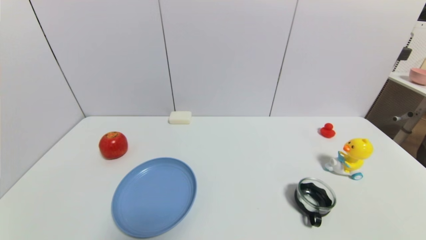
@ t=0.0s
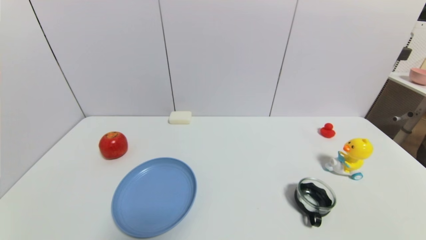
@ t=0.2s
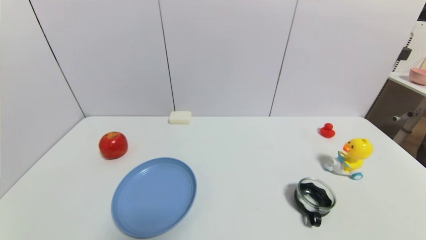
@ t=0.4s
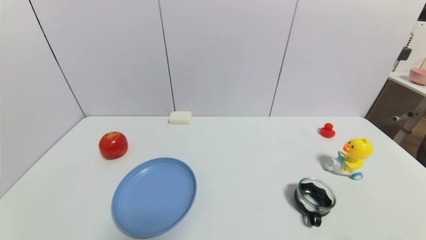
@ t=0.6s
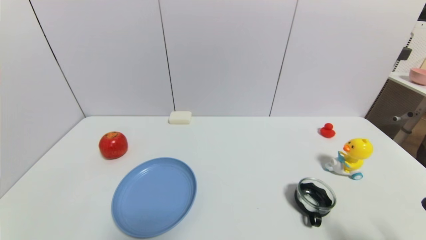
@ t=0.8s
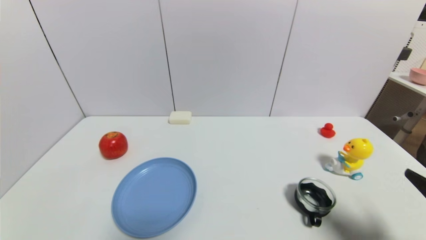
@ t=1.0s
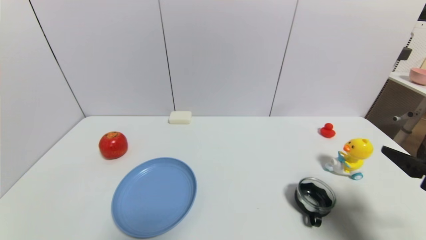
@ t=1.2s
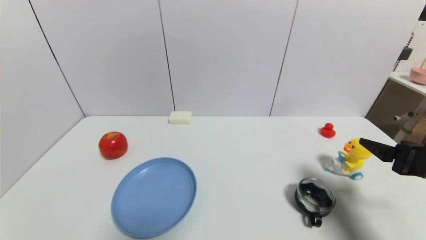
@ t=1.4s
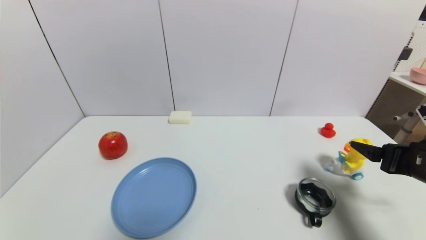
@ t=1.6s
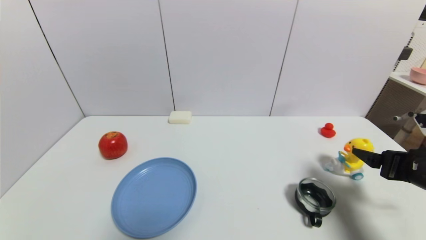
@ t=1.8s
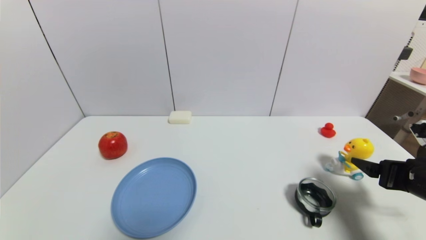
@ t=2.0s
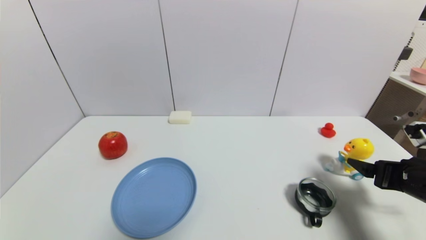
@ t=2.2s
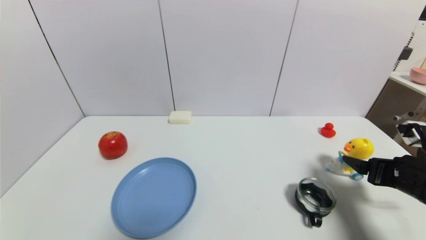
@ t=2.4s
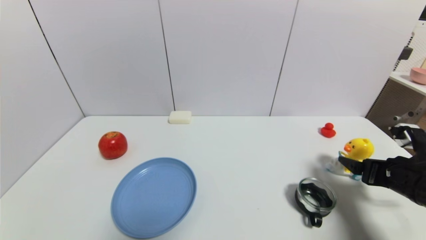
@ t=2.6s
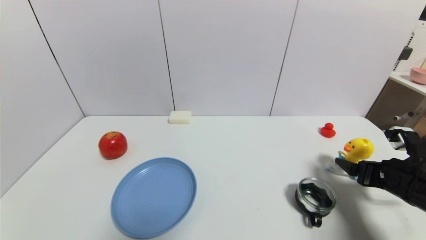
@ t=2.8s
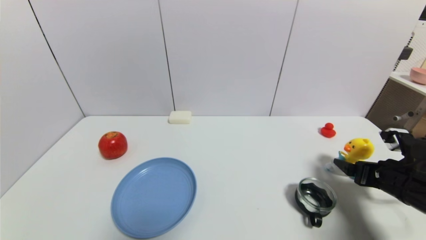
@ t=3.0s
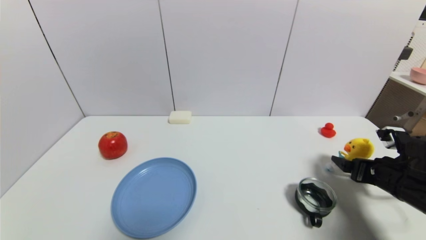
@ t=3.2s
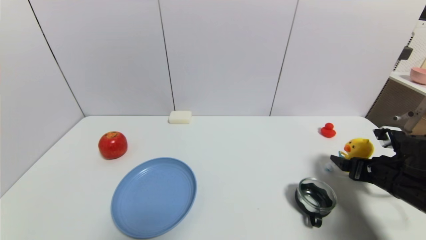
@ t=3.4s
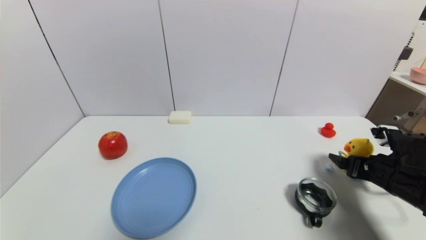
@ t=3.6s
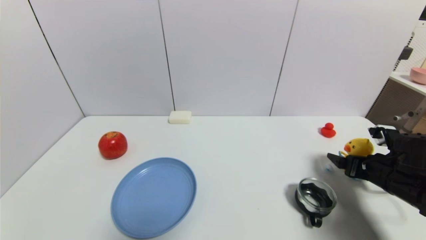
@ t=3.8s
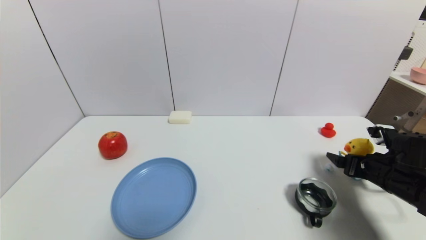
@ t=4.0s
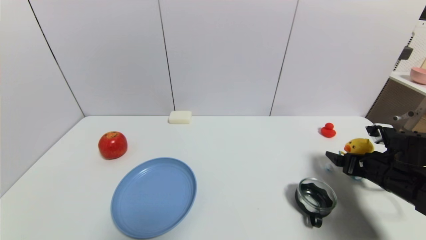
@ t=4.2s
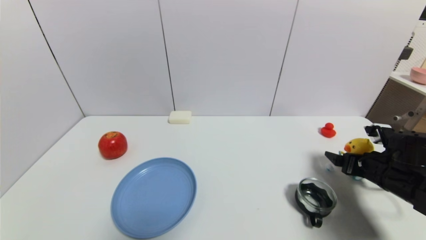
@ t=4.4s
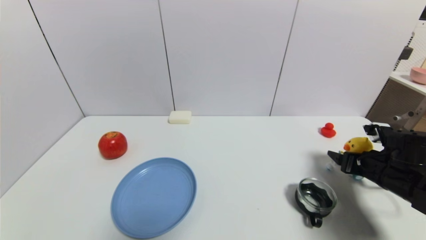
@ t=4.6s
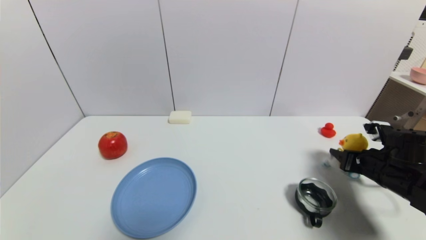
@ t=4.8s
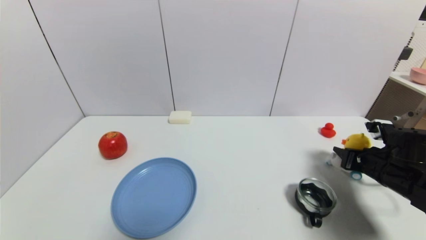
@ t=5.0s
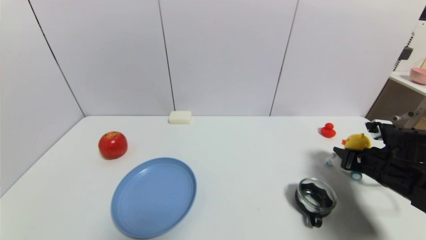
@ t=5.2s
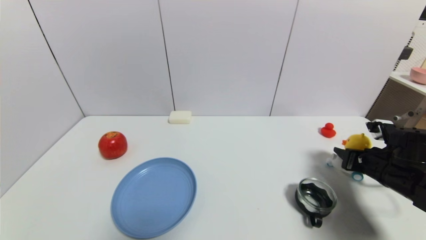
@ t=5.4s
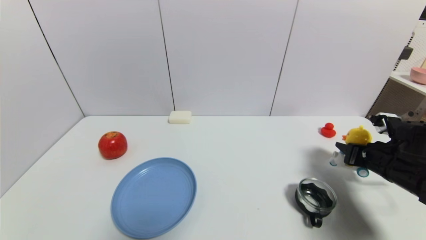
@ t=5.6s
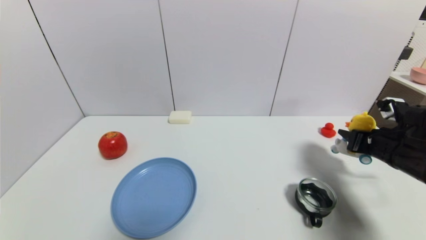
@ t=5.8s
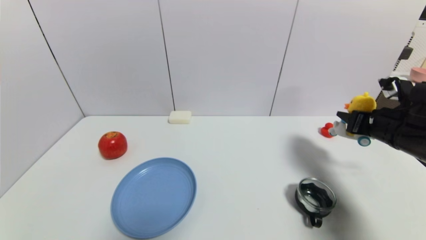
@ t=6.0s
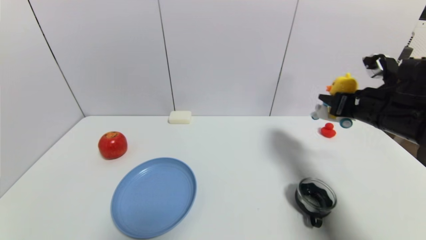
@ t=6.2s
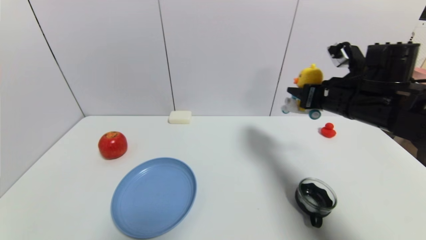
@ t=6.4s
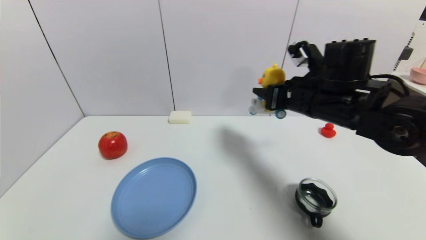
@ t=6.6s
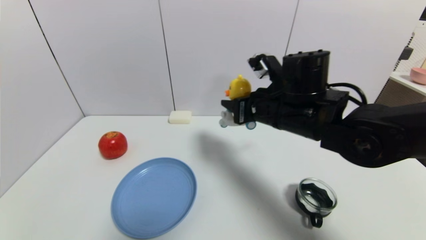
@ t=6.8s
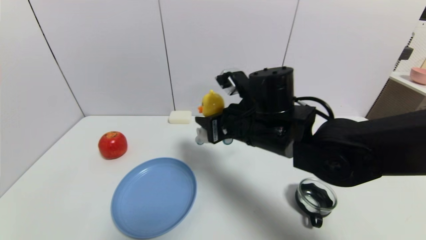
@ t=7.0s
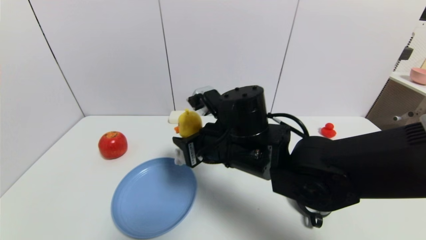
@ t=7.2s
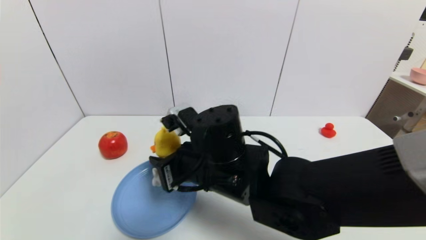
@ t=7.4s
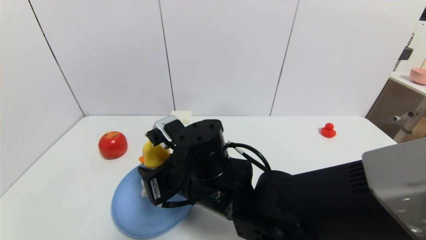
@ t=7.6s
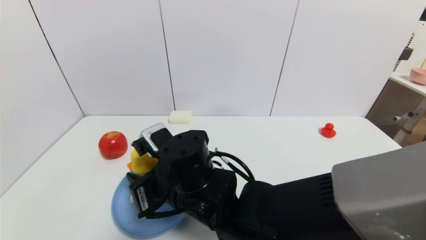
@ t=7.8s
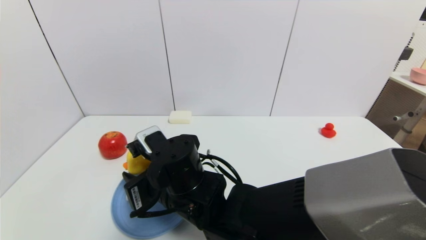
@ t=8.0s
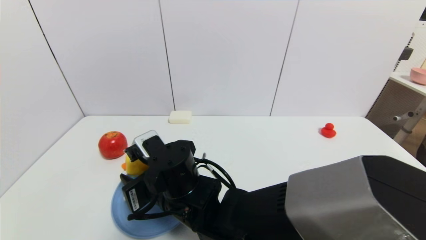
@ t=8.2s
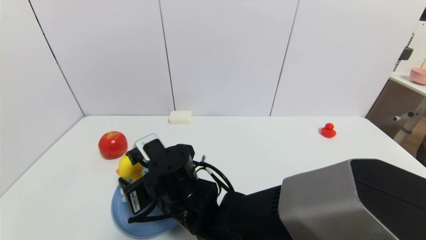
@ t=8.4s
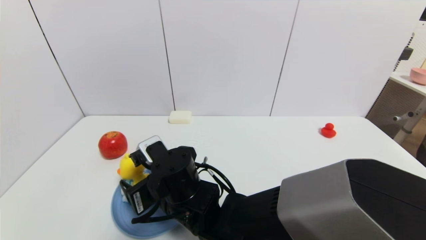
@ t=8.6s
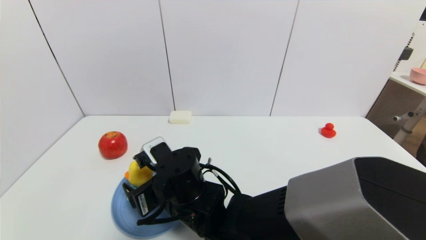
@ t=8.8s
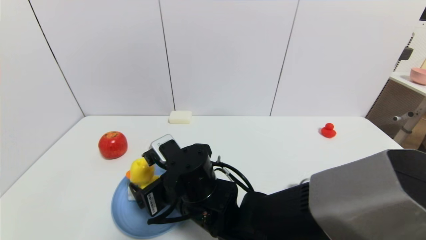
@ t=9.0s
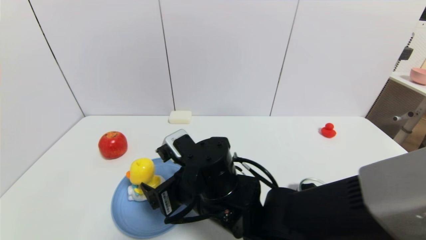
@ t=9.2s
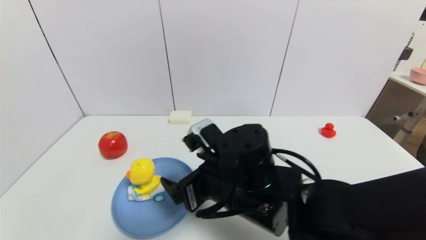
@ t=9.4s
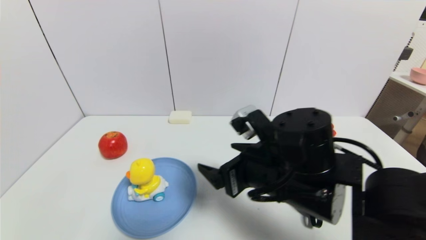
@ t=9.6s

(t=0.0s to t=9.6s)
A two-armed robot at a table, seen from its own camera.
Task of the whole recording: use a gripper to pick the target object and place on the blue plate.
Step, t=0.0s - t=4.8s: Grasp the duck toy with the right gripper.
Step, t=5.0s - t=8.4s: Place the duck toy on the blue plate with the right gripper.
t=0.0s - t=1.6s: The right gripper is displaced forward and upward by some 25 cm.
t=1.6s - t=3.2s: The right gripper is displaced downward by some 5 cm.
t=3.2s - t=4.8s: The right gripper closes.
t=4.8s - t=6.4s: The right gripper goes approximately 20 cm upward and to the left.
t=6.4s - t=8.0s: The right gripper travels to the left by roughly 30 cm.
t=8.0s - t=9.6s: The right gripper is displaced to the right by about 15 cm, and opens up.

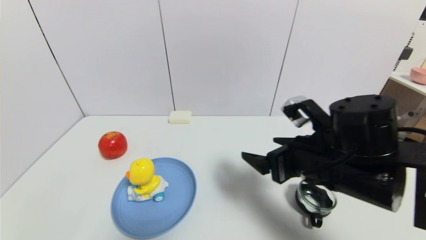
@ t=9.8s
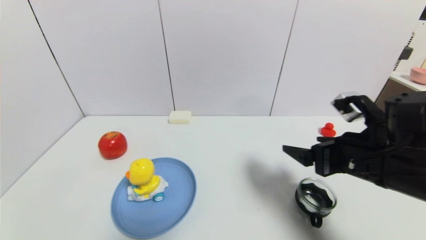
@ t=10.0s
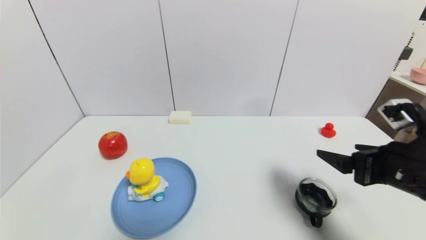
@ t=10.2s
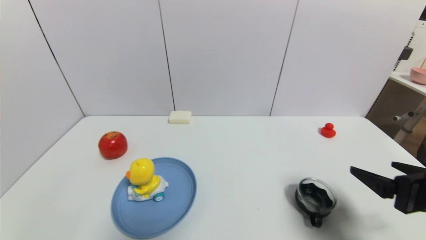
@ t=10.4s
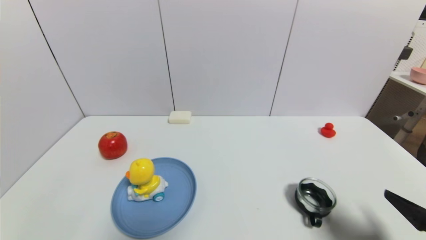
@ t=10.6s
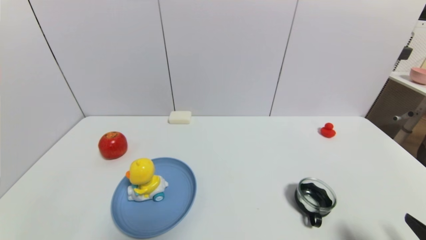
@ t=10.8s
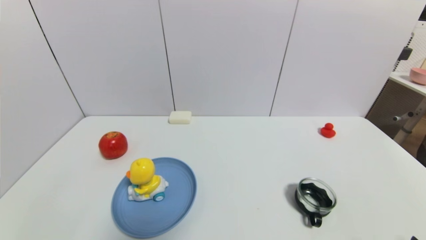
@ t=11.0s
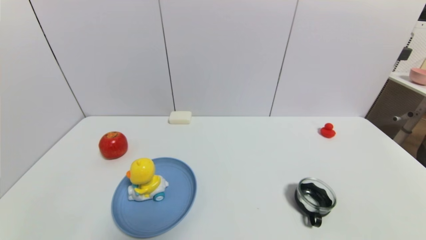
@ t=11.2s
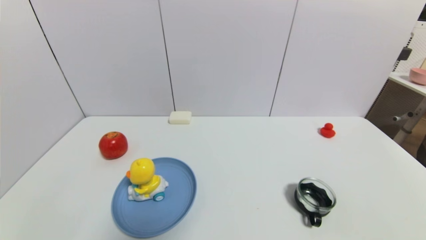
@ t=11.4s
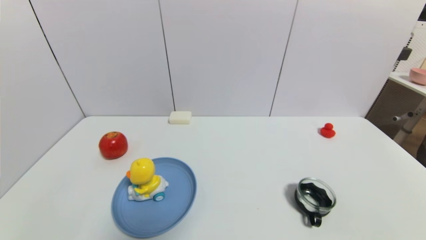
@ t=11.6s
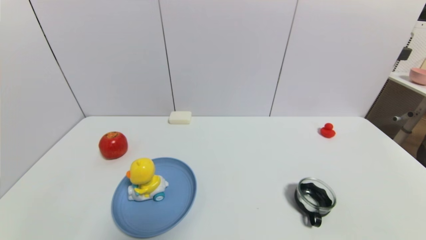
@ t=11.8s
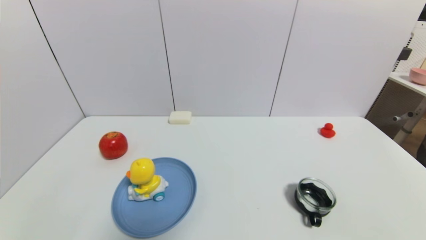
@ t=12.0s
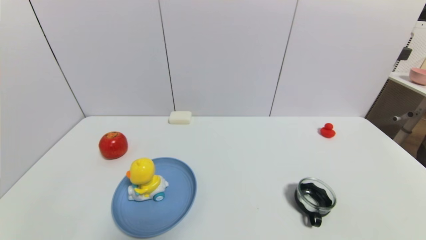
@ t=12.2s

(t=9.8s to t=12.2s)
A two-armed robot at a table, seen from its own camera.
Task of the whole recording: use a gripper to pick the target object and place on the blue plate.
t=9.8s - t=11.0s: The right gripper shifts about 25 cm backward, to the right and downward.
